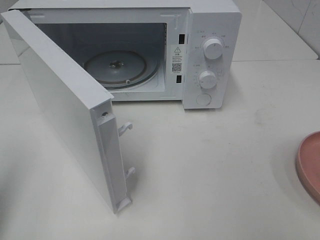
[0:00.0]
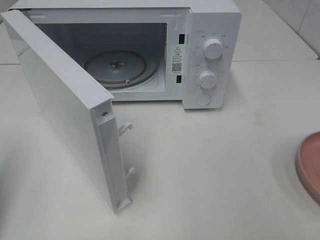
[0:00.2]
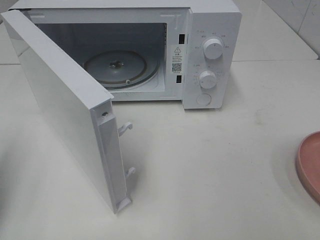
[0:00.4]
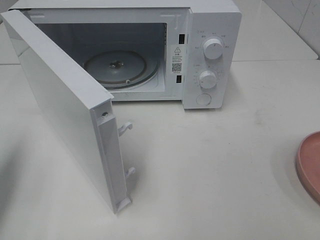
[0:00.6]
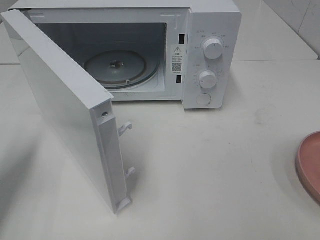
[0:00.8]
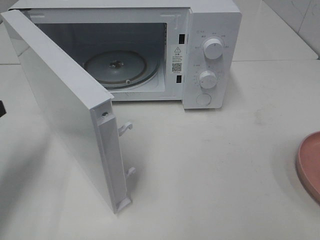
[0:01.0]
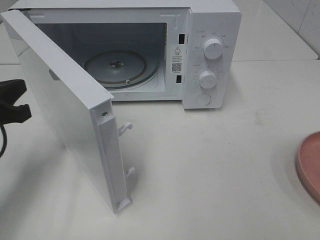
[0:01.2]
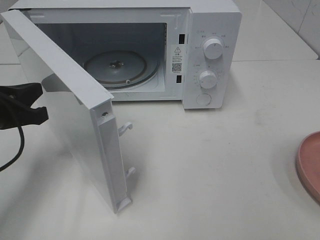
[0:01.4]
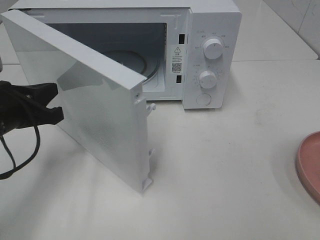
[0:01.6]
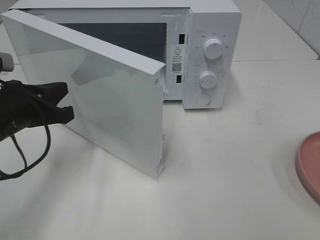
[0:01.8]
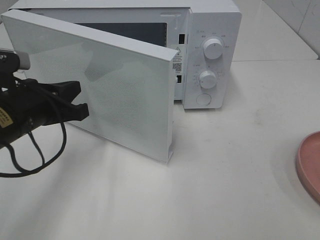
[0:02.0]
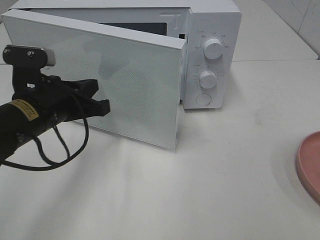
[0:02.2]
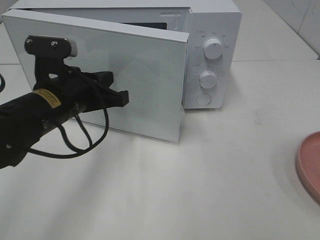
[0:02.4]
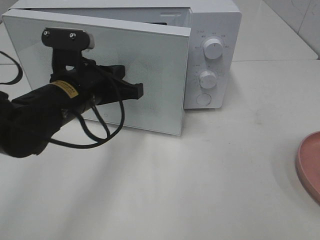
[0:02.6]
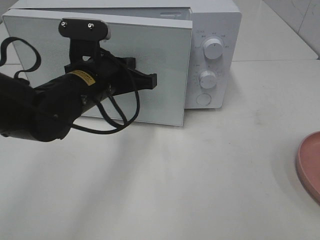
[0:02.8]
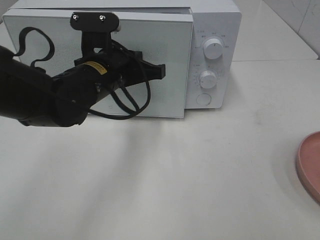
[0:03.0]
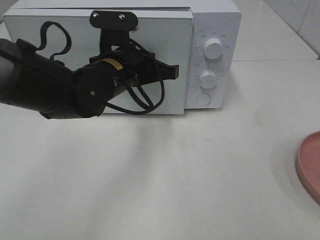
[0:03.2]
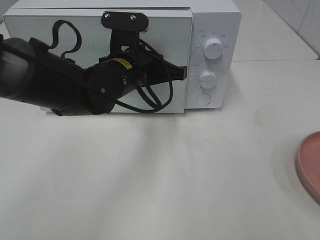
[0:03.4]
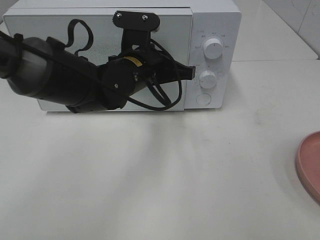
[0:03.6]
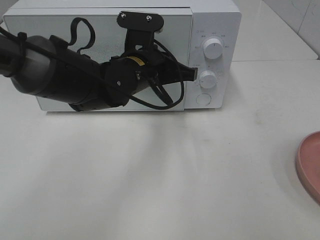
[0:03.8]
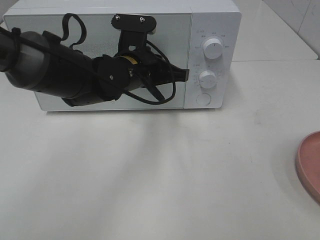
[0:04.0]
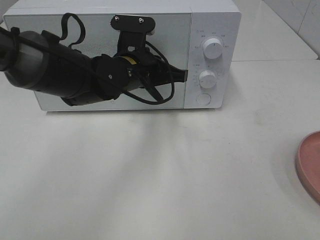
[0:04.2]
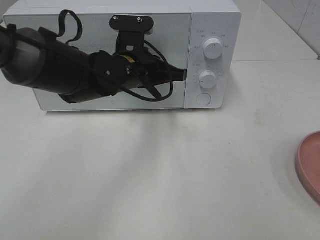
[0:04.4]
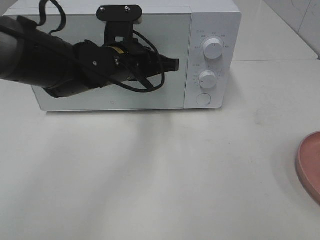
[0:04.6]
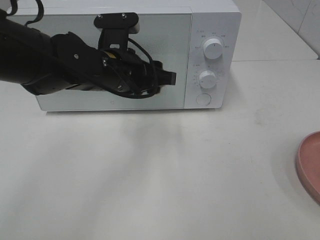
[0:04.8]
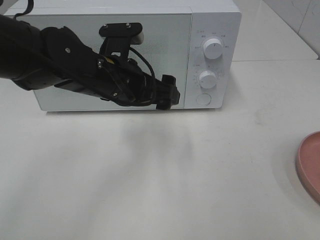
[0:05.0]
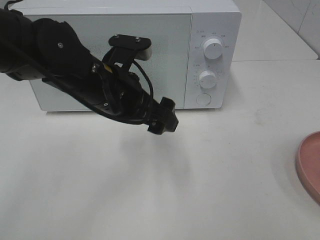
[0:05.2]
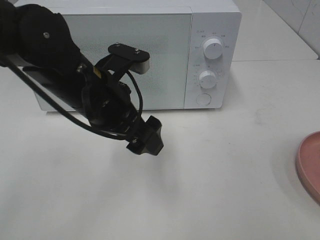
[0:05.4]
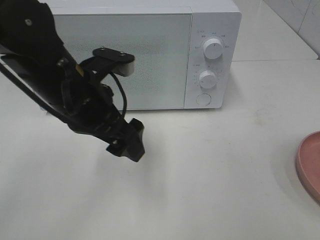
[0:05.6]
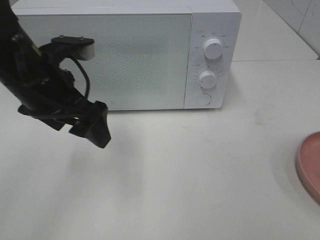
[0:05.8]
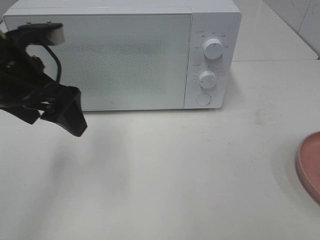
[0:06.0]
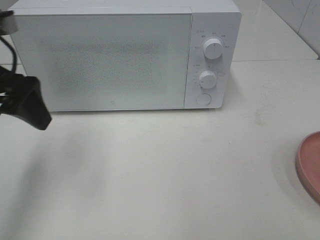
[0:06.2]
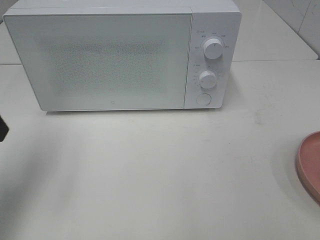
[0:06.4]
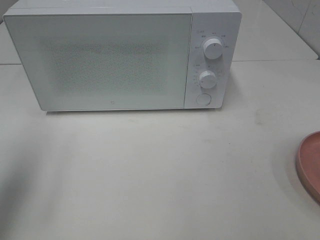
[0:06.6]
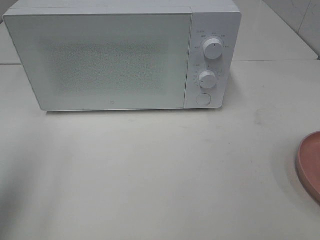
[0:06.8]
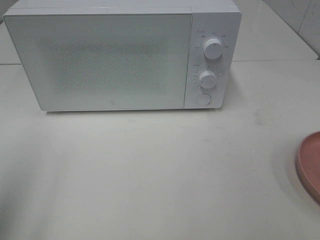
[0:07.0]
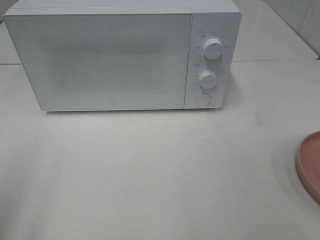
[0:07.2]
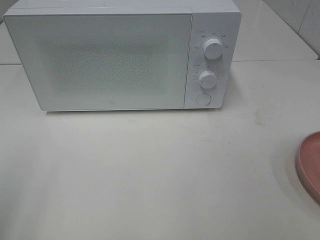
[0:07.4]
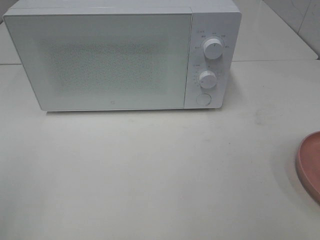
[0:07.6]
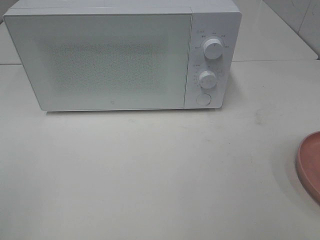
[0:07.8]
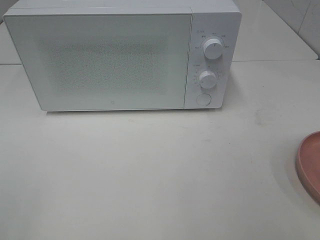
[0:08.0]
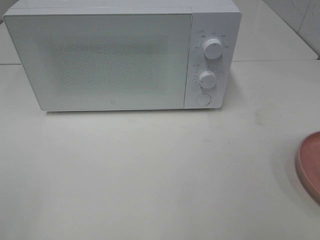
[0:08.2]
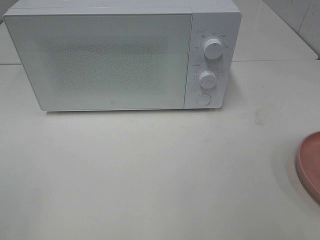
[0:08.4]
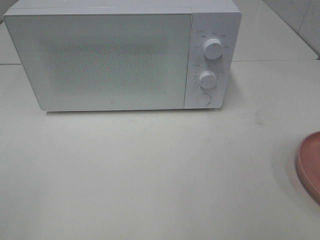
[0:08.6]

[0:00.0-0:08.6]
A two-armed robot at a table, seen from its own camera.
Task of the whole recording: Heat the burger.
Step, 0:00.0 to 0:04.6: Left hand: close the microwave door.
0:00.0 to 0:01.4: The left gripper travels forward, downward and to the right by some 20 cm.
0:01.4 to 0:02.8: The left gripper heads to the right, covering approximately 15 cm.
0:02.8 to 0:04.4: The left gripper travels forward by some 5 cm.
0:04.4 to 0:05.8: The left gripper moves to the left, backward and upward, some 15 cm, and opens up.
0:05.8 to 0:07.2: The left gripper goes some 25 cm backward and to the left.

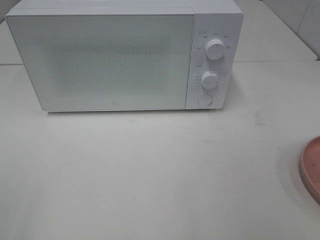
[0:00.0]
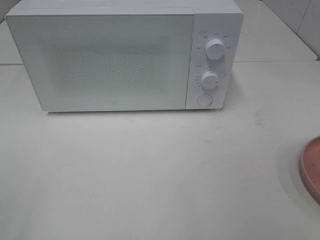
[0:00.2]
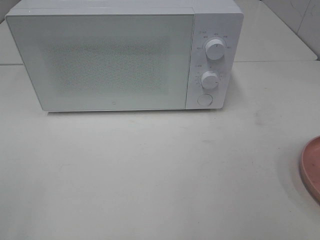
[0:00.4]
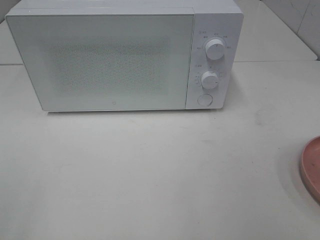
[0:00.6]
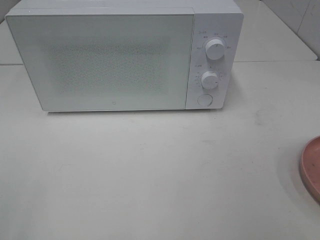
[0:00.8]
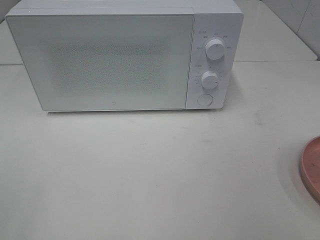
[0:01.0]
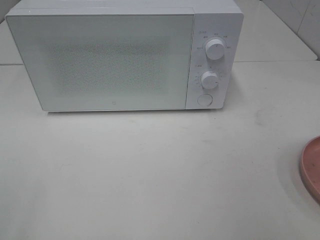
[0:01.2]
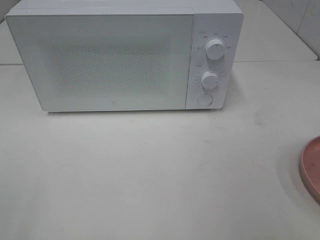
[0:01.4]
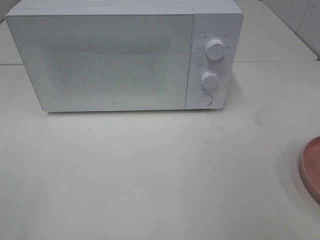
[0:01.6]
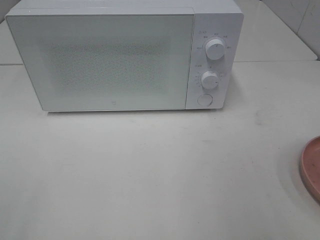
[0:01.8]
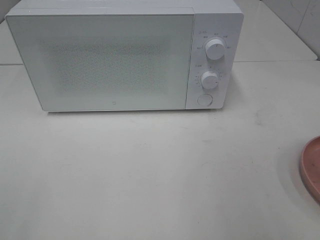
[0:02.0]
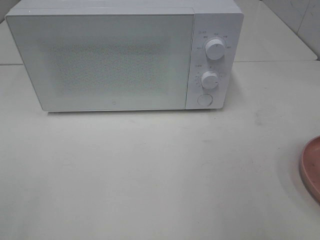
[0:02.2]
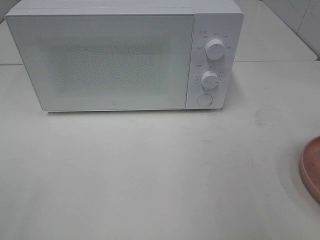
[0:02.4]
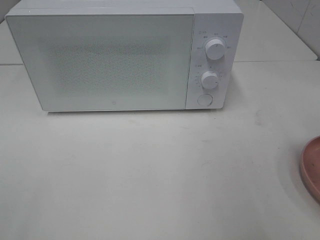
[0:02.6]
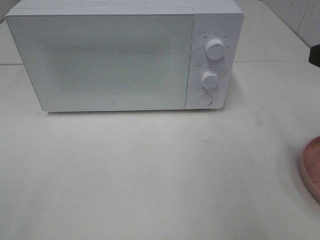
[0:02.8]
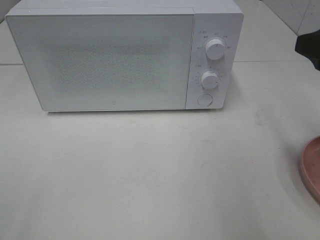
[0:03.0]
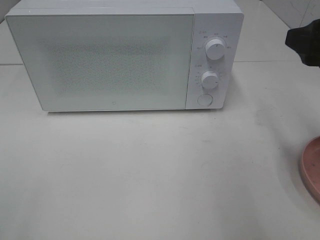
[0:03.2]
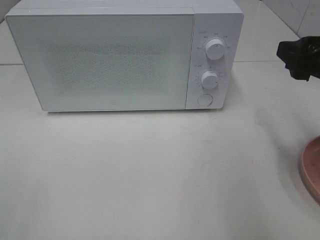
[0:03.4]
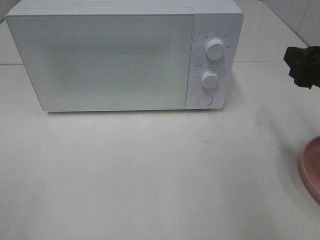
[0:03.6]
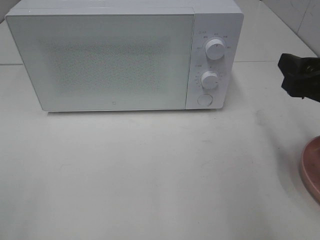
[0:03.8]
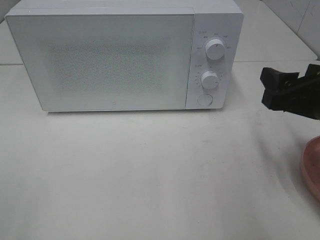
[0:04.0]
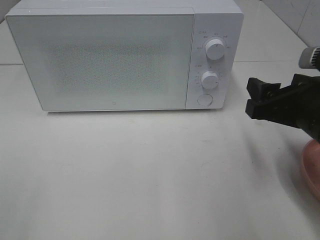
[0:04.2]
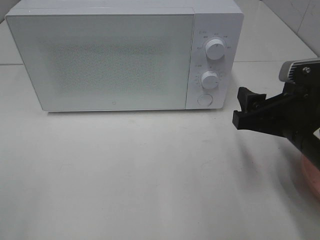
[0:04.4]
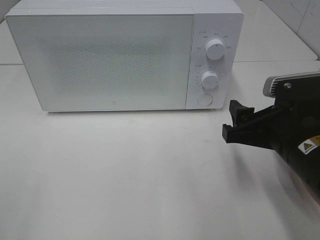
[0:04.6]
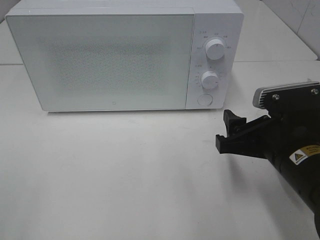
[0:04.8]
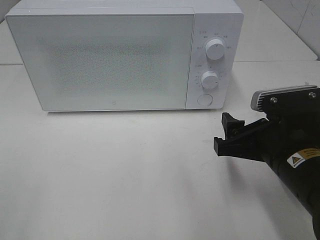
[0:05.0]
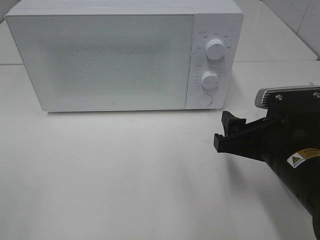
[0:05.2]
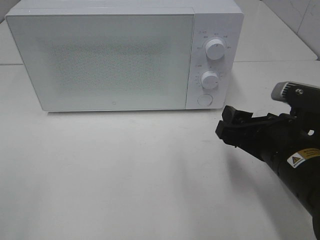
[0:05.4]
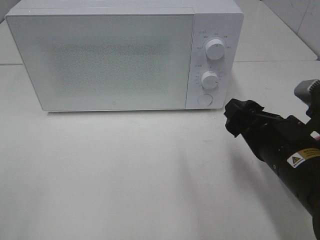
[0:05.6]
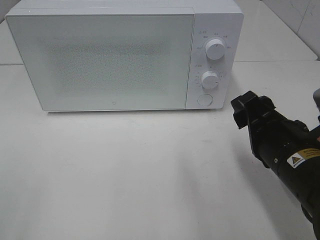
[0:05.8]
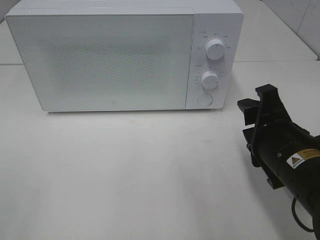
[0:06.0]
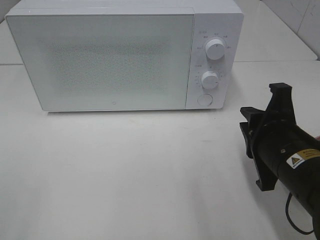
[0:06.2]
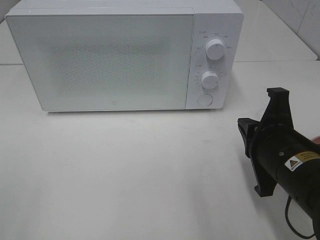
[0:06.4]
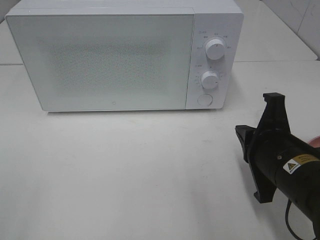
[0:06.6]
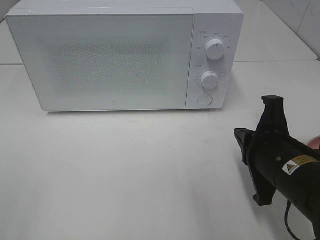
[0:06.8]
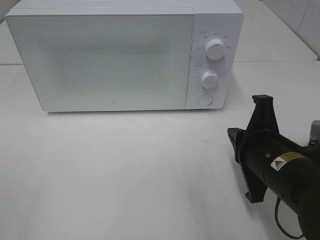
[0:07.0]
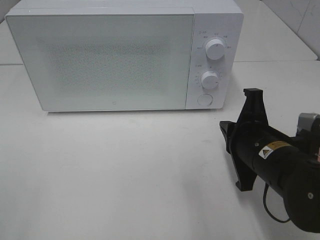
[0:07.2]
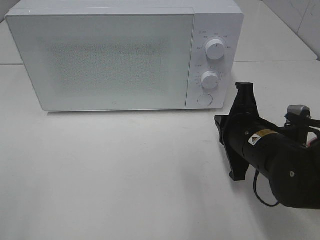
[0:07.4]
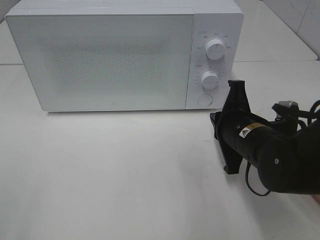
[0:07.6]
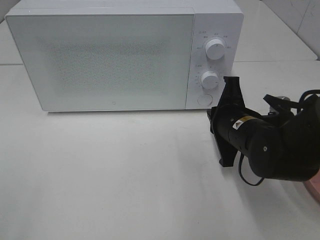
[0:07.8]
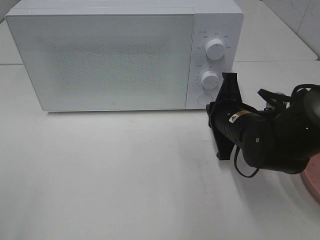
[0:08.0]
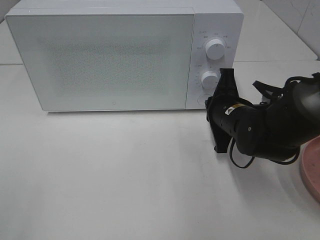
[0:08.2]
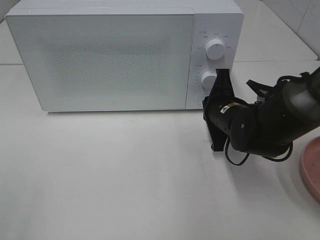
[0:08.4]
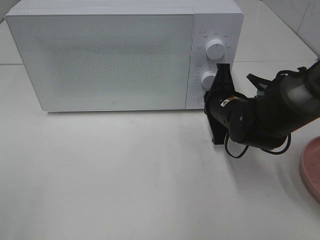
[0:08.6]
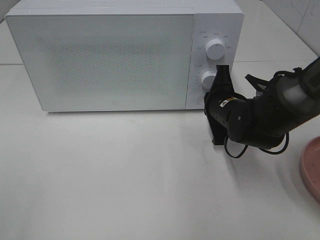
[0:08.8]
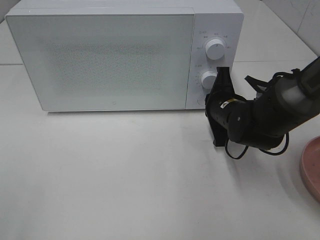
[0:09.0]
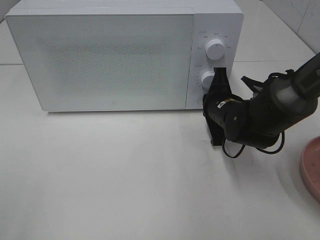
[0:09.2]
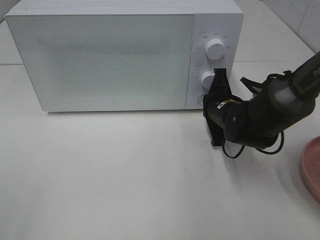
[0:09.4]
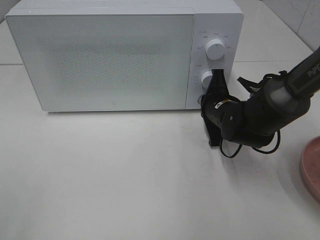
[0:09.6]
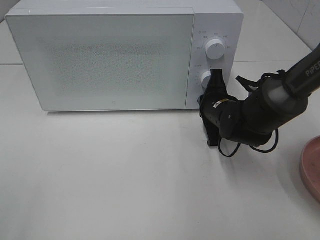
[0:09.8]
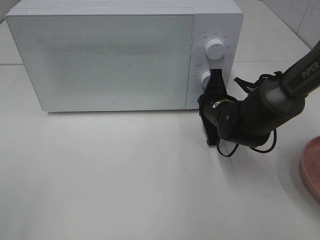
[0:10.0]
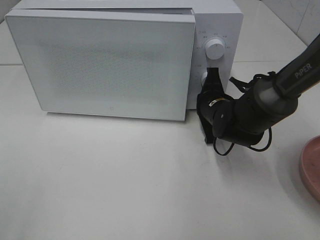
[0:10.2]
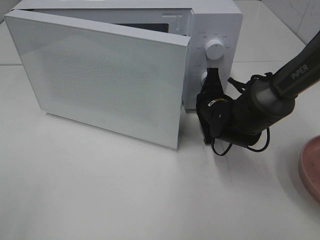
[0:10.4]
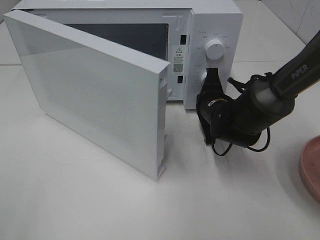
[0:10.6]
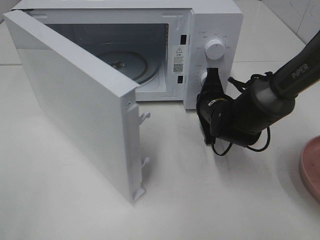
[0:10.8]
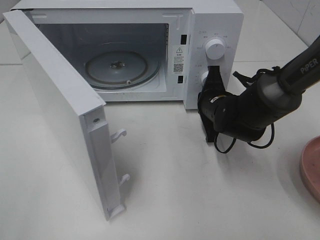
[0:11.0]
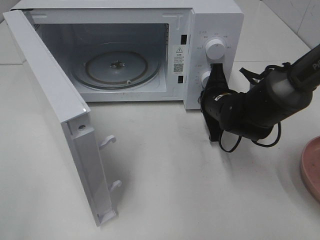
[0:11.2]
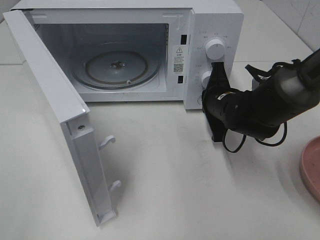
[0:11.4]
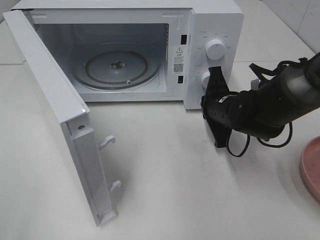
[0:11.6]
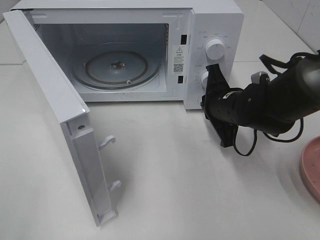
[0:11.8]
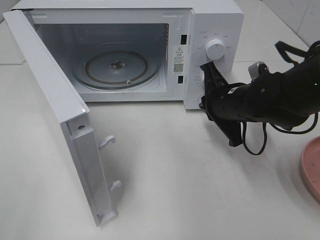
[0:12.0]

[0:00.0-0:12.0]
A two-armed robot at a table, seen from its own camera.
Task of the whole recording: Heat the burger.
Step, 0:00.0 to 0:11.6: Right hand: press the switch.
0:01.6 to 0:03.0: The right gripper moves forward, about 15 cm.
0:03.0 to 0:04.4: The right gripper travels downward and to the left by approximately 15 cm.
0:06.0 to 0:07.6: The right gripper travels forward by approximately 5 cm, and closes its fingers.
0:07.6 to 0:09.0: The right gripper goes approximately 10 cm forward.
0:09.0 to 0:10.4: The grippers make only small movements.
0:10.4 to 0:12.0: The right gripper is displaced upward by roughly 5 cm.

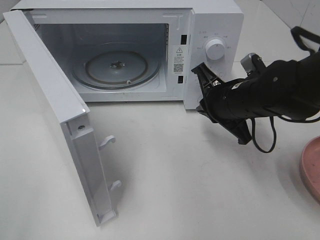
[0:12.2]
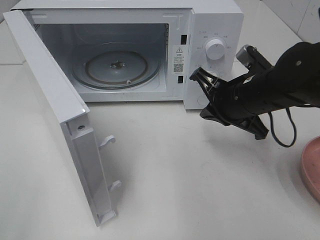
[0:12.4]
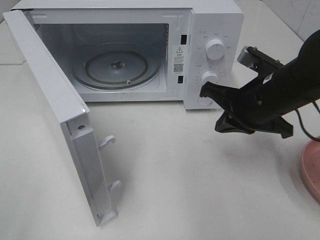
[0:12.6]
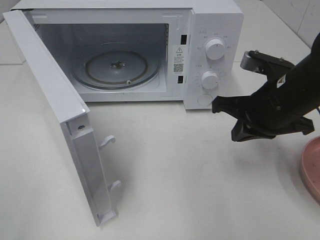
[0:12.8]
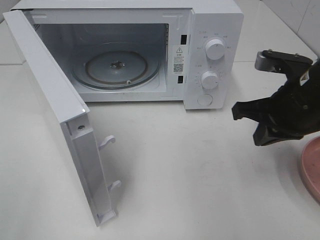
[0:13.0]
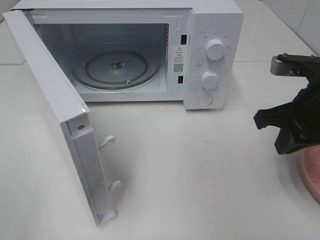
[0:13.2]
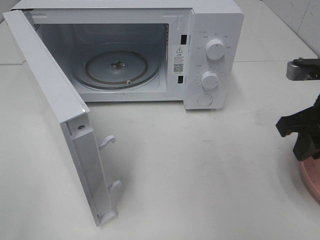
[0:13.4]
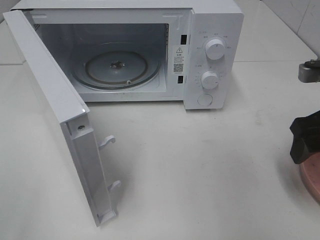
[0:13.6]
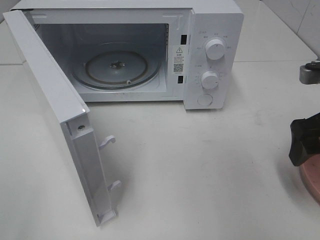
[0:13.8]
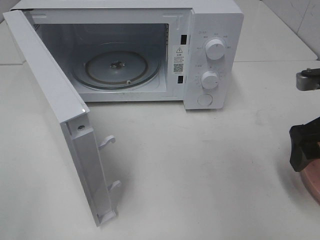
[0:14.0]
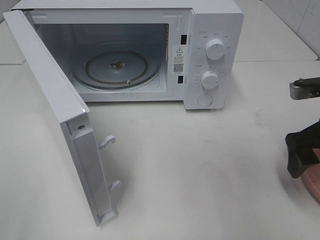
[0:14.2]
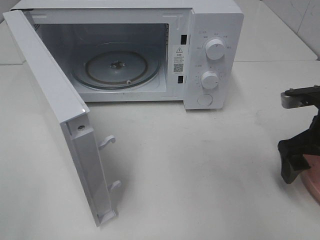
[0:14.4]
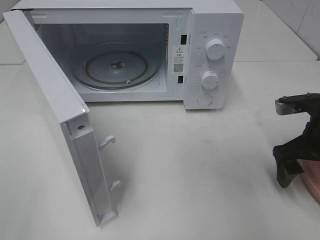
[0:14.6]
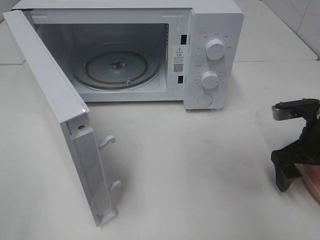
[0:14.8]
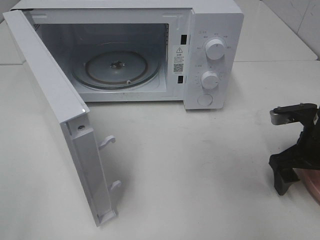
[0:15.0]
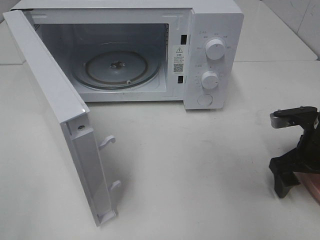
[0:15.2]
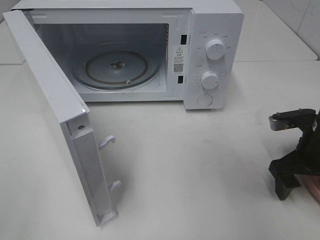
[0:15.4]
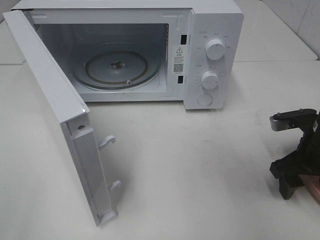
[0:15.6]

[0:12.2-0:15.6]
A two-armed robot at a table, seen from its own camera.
Task of the whole recording: Heat the burger.
0:12.2 to 0:13.8: The right gripper heads to the right, backward and upward, covering roughly 15 cm, and opens.
0:13.8 to 0:15.6: The right gripper shifts about 10 cm downward.
